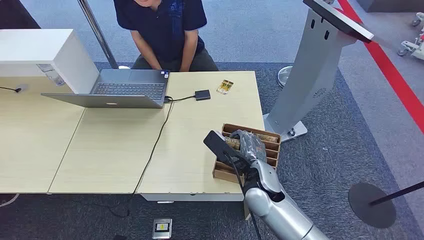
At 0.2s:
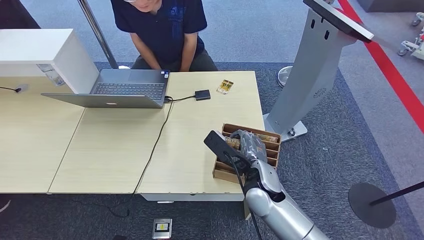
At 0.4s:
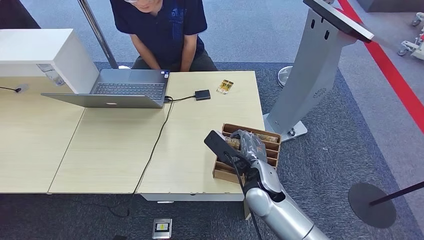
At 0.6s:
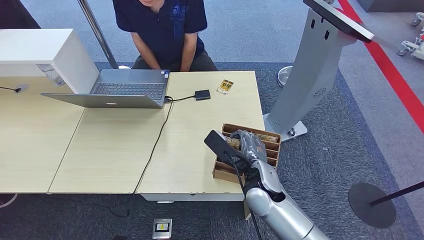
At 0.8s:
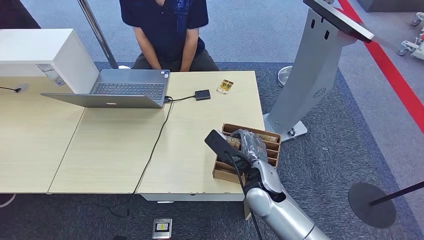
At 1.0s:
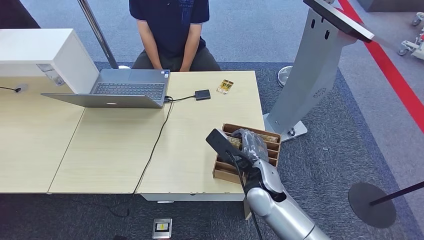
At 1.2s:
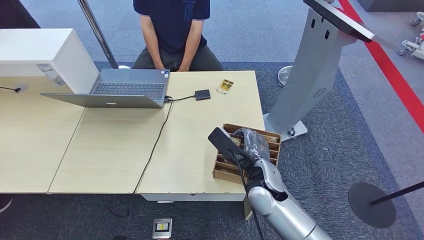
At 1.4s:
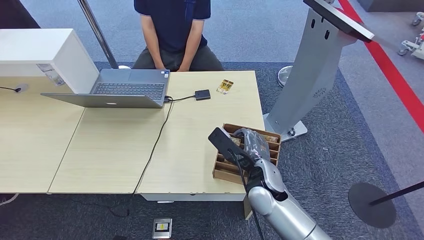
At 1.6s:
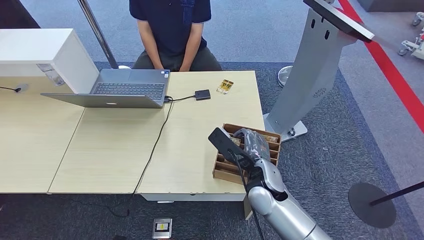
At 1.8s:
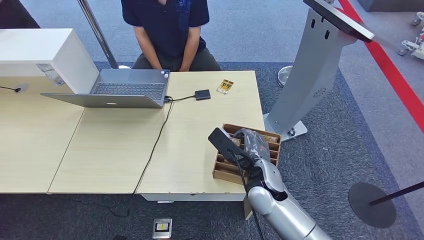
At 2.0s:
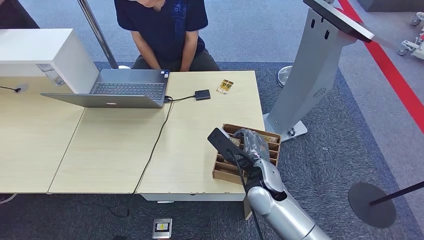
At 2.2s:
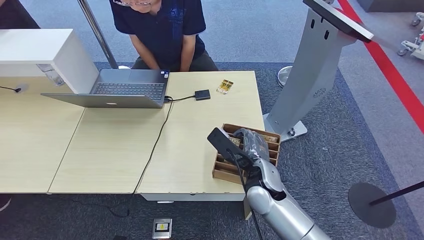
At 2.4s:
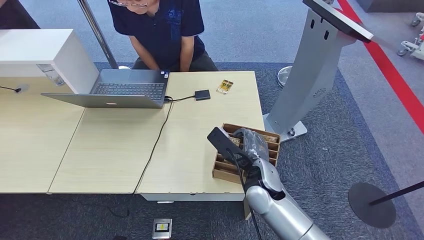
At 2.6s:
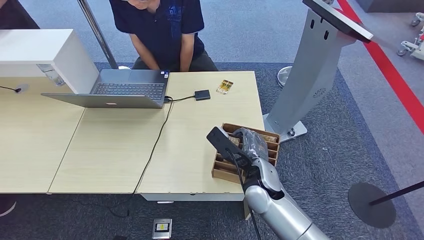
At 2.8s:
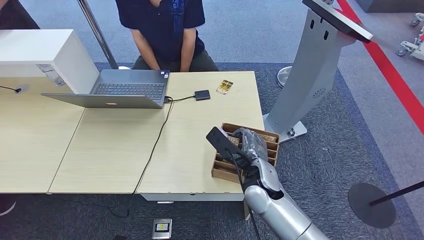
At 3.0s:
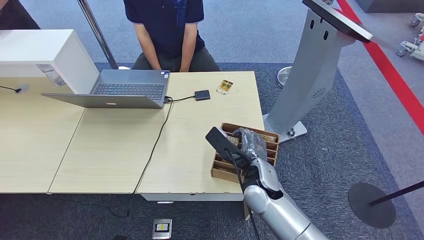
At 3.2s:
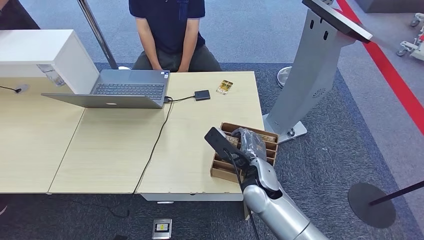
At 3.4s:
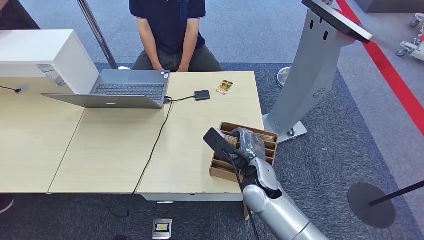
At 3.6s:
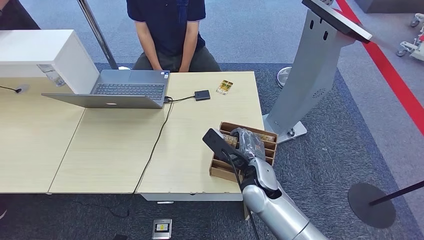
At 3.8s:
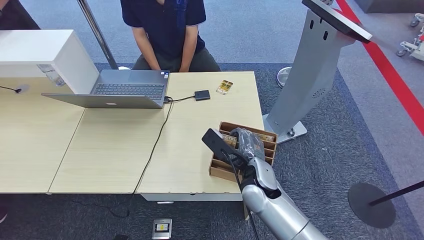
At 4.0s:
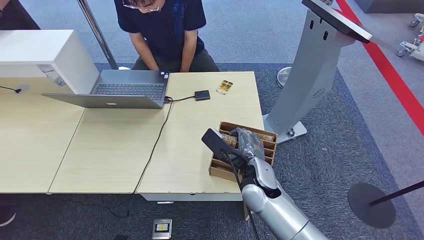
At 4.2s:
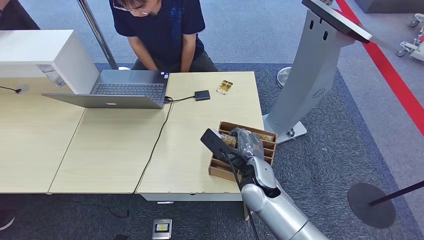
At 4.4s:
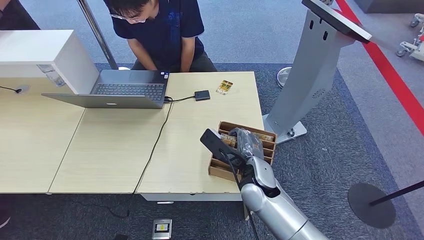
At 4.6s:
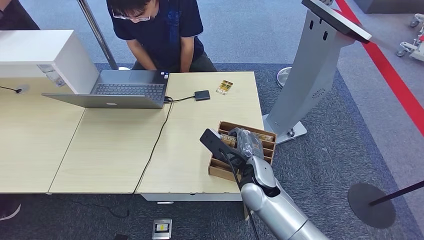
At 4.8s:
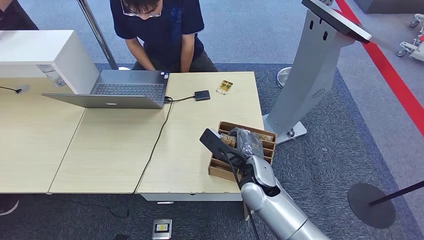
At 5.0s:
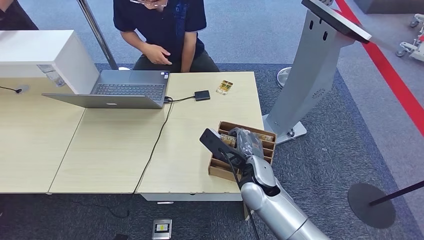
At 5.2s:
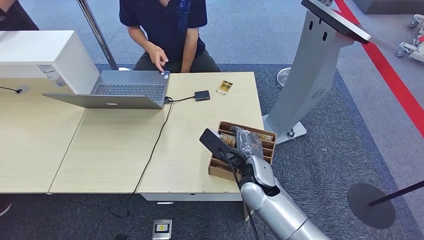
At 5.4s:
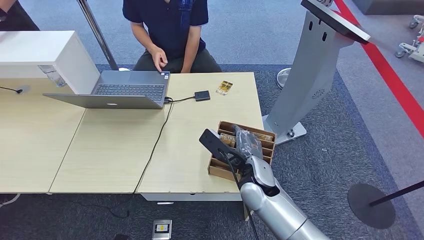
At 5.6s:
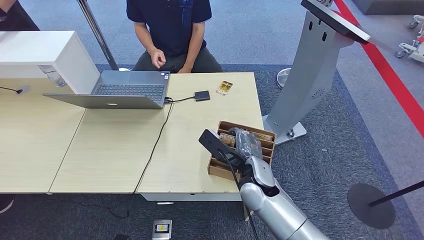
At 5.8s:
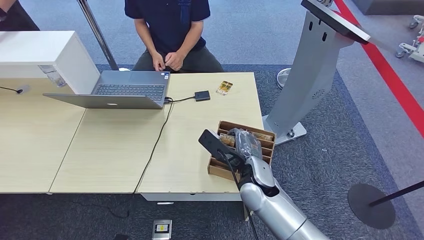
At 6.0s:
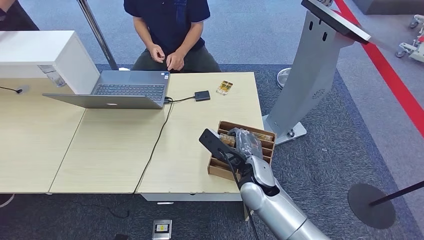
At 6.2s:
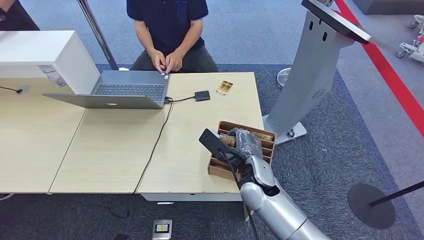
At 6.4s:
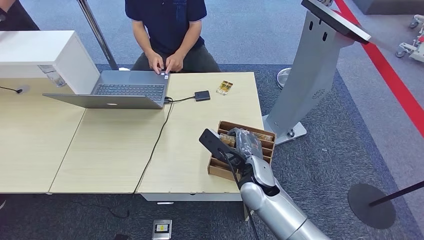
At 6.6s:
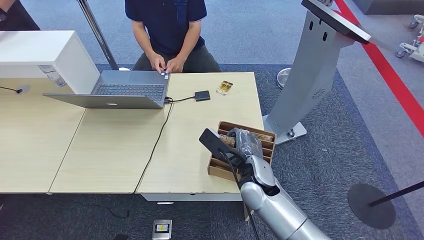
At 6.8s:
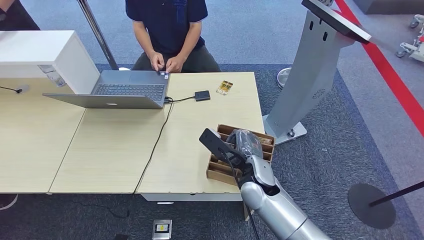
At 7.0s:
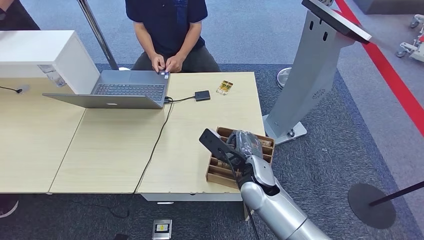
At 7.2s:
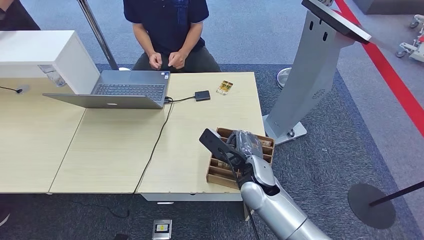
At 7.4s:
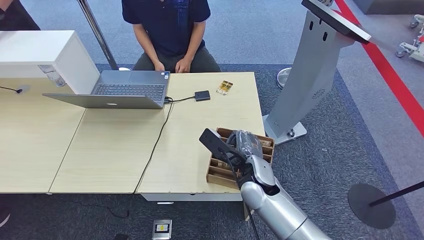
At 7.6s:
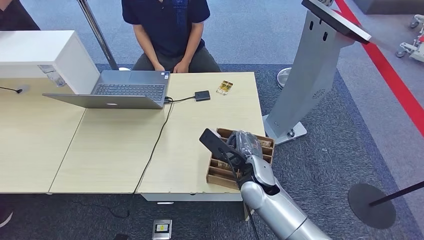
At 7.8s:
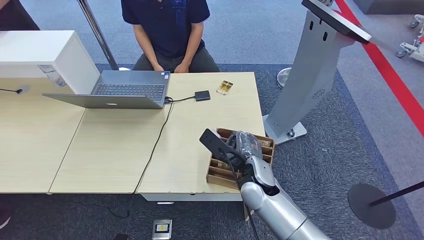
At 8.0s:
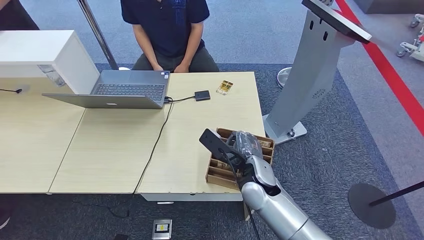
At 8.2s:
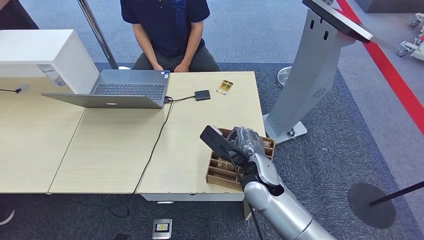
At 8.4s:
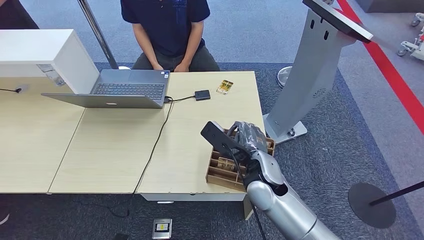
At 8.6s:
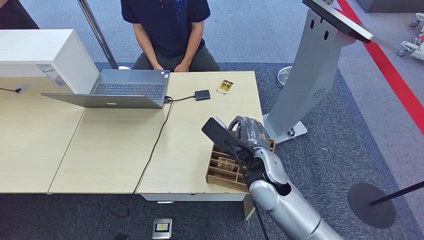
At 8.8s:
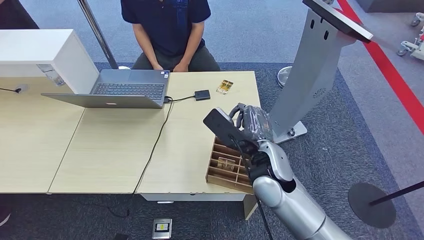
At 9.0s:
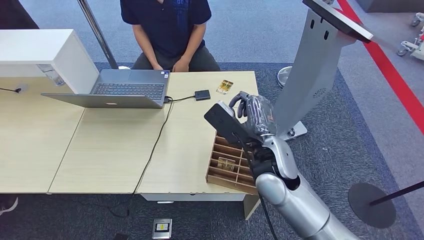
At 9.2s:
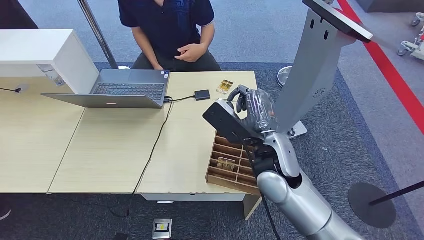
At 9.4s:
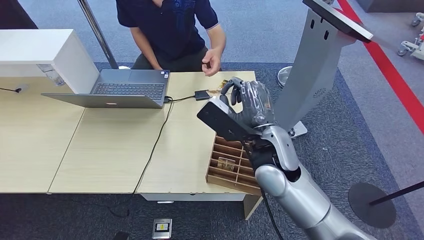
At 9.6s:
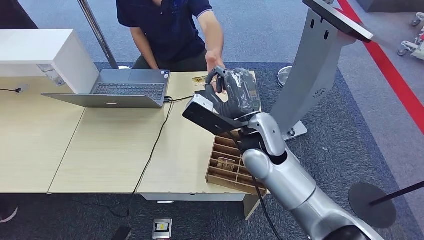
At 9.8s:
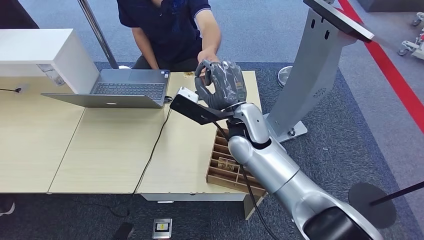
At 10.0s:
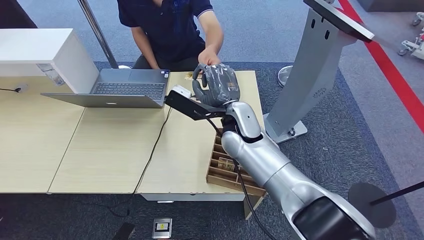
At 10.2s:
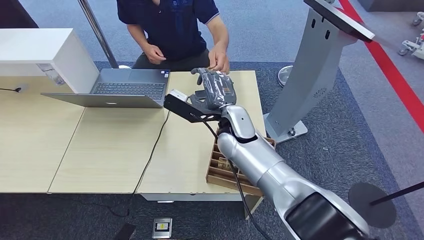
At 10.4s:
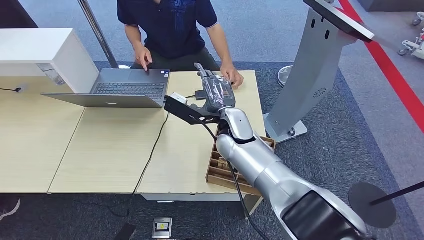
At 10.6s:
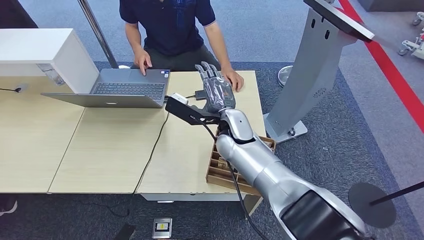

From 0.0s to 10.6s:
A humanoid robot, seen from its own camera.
Step, from 0.0s to 8.8s: Pick up the room card from the card holder.
Step, from 9.2s to 10.6s: Hand the room card to the target.
From 1.6s to 3.0s: The two hands keep their place.
From 3.0s to 4.6s: The hands make only small movements.
From 4.6s to 7.6s: Neither hand changes place.
From 7.6s to 9.0s: The right hand shifts about 10 cm upward.
From 9.0s to 10.6s: The right hand goes roughly 15 cm forward and to the left.
